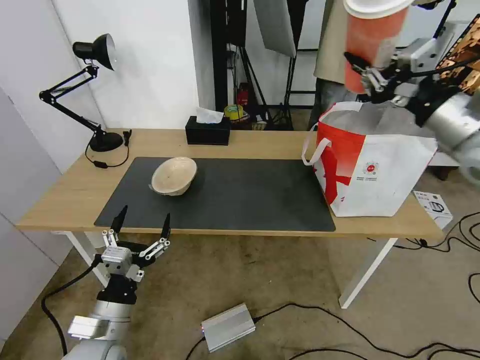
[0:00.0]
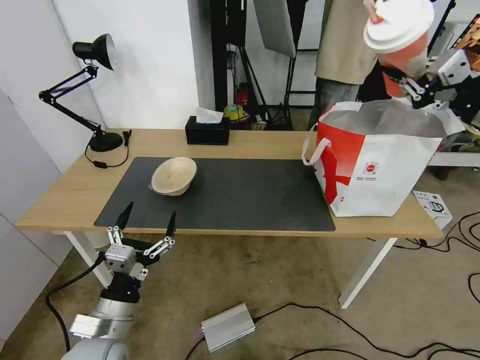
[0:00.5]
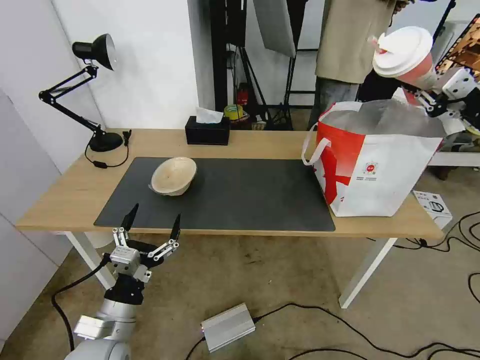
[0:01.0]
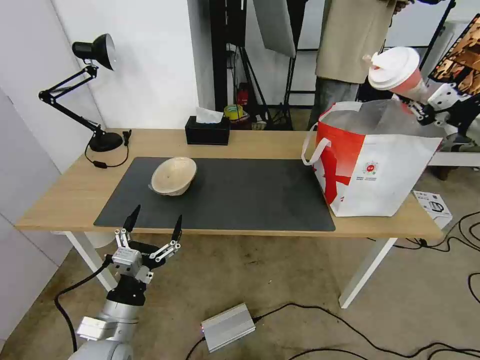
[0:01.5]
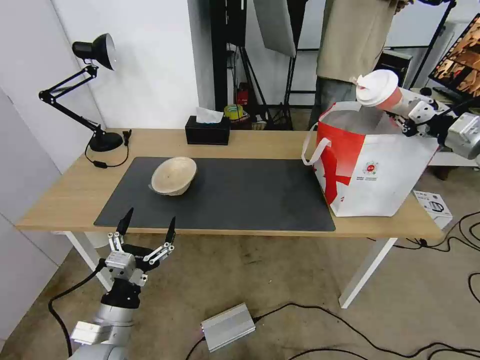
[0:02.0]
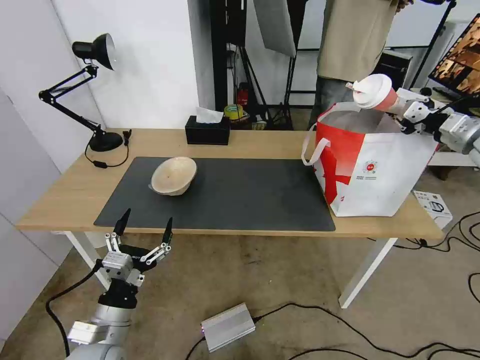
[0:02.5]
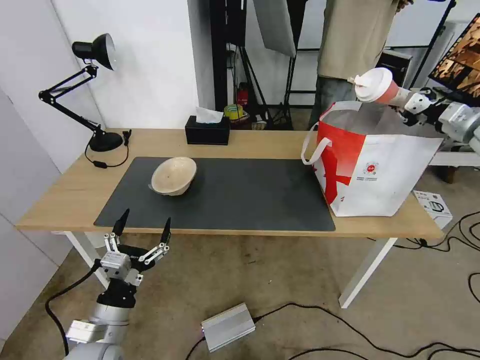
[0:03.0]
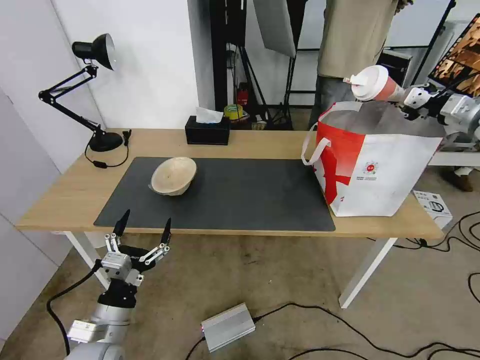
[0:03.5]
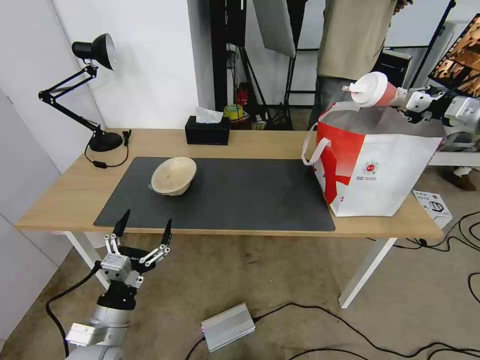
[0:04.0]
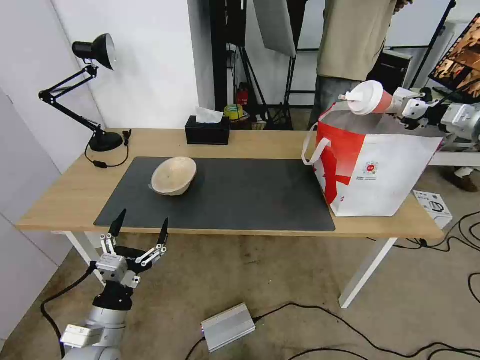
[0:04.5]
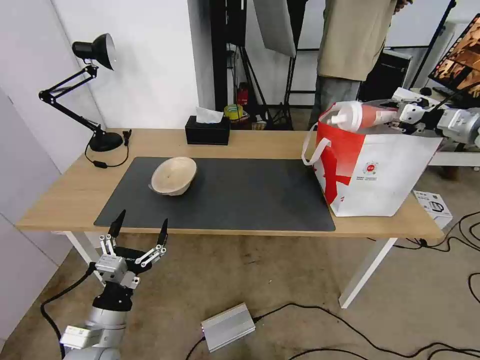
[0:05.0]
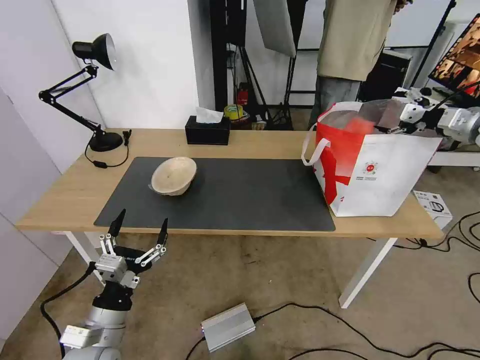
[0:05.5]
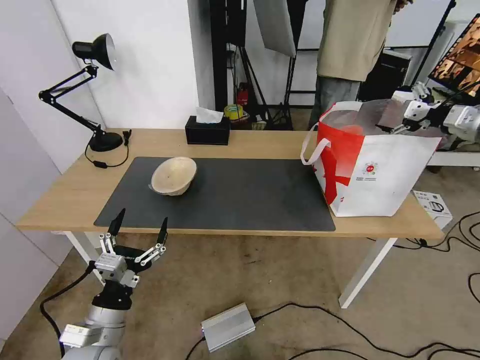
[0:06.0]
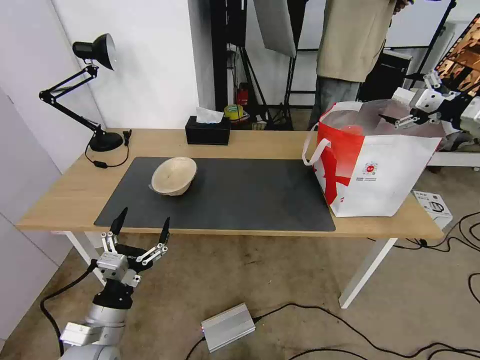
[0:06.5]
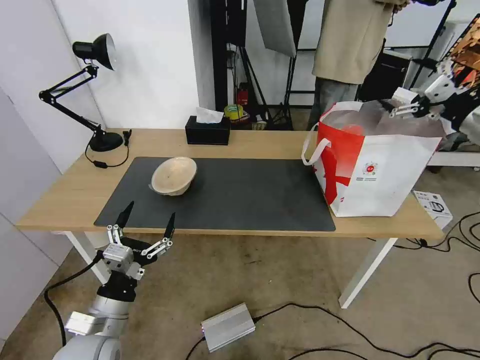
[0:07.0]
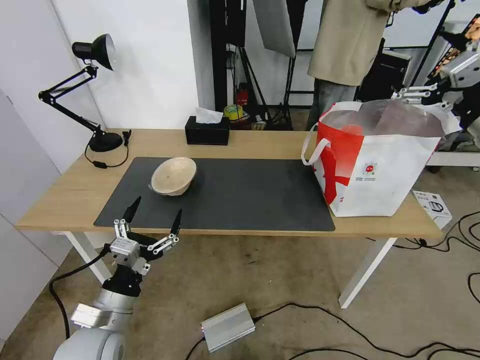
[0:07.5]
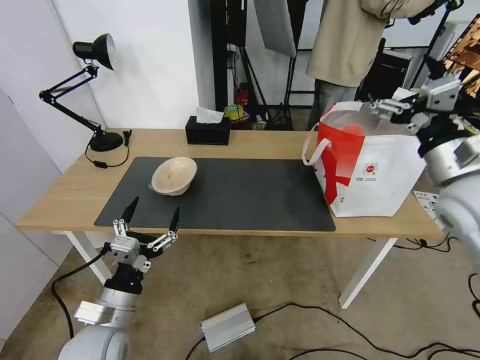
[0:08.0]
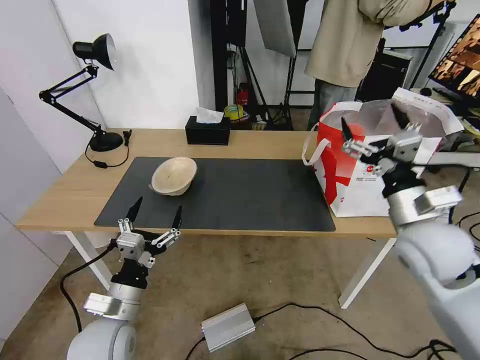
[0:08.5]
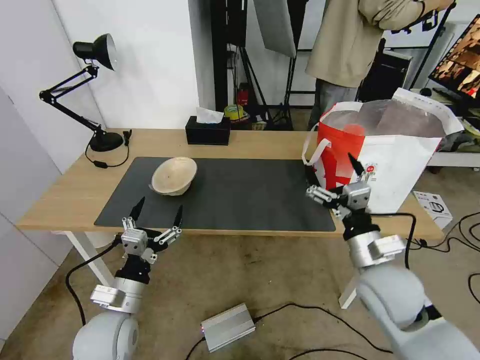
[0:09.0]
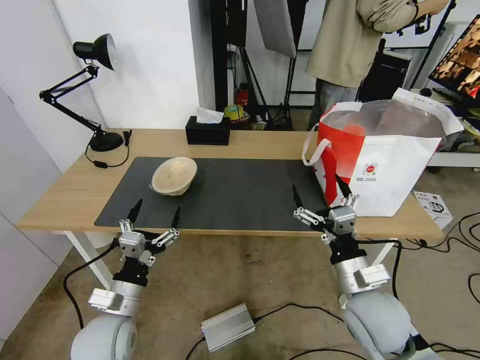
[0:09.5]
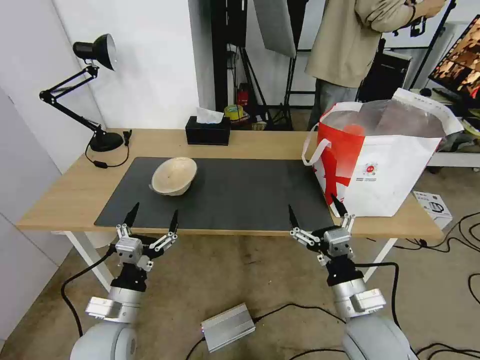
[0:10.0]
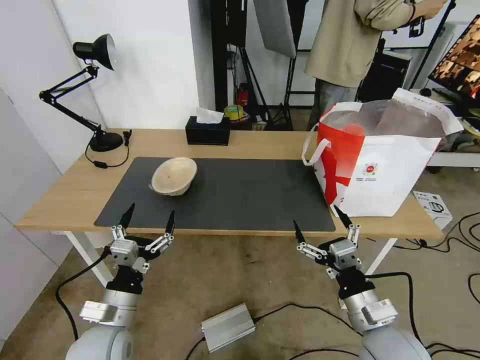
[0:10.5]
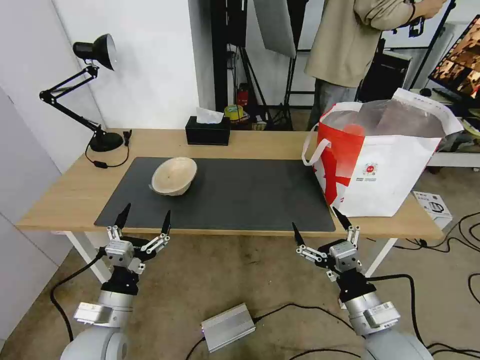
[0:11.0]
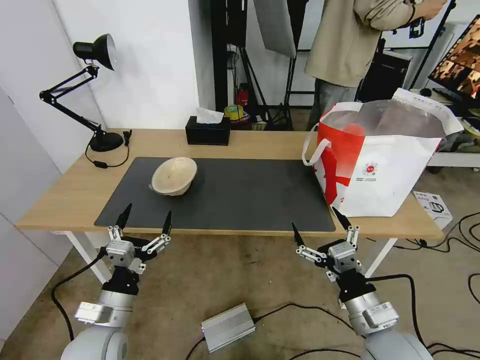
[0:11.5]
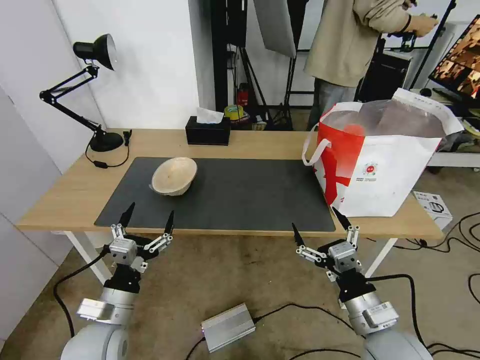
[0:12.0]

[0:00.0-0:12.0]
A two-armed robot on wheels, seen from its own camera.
Task of the whole recording: Pick up the trash from the table and place it into the takeout bag.
0.0 to 2.0 s: The right gripper shifts some 20 cm to the right, forward and downward.
2.0 to 4.0 s: The right gripper shifts by approximately 5 cm.
4.0 to 6.0 s: The right gripper opens its fingers.
6.0 to 8.0 s: The right gripper goes roughly 25 cm to the left and backward.
8.0 to 10.0 s: The right gripper moves downward, backward and to the left, some 30 cm.
10.0 to 12.0 s: The grippers move only a little.

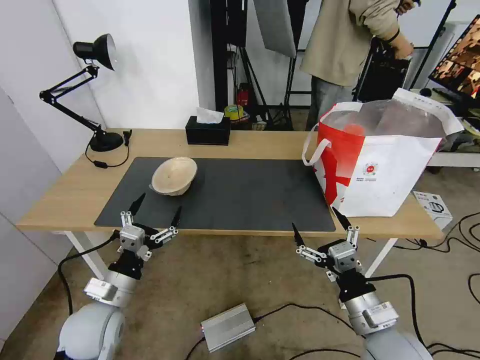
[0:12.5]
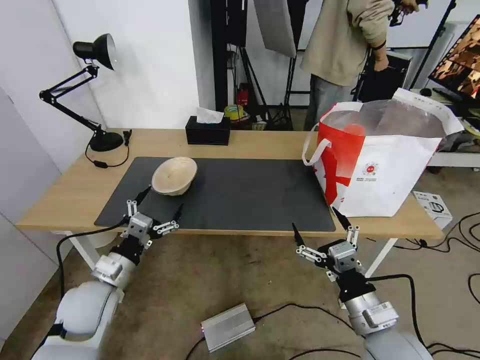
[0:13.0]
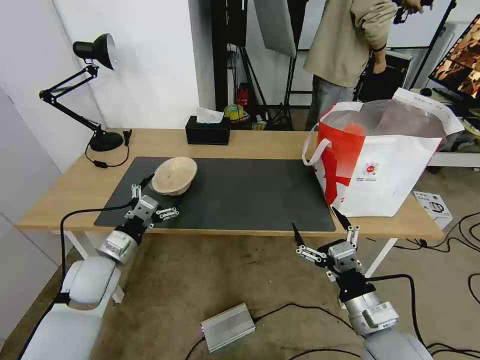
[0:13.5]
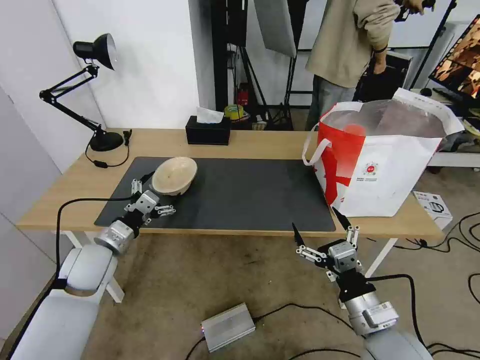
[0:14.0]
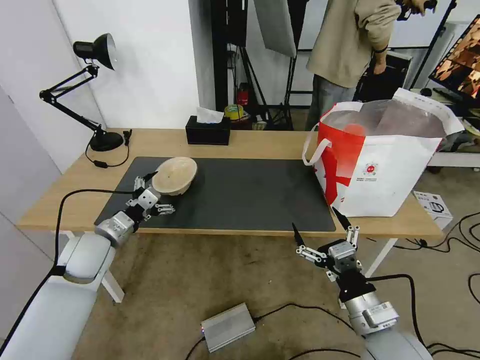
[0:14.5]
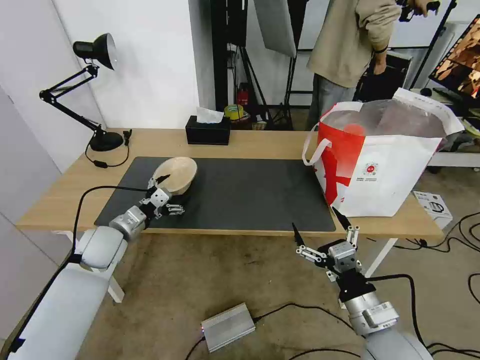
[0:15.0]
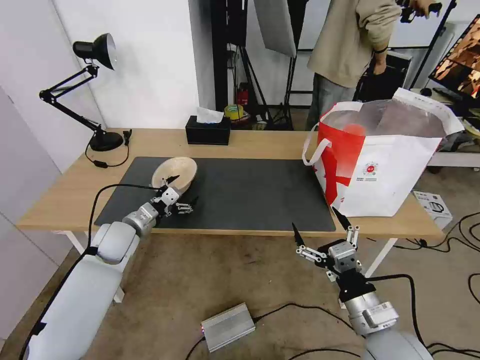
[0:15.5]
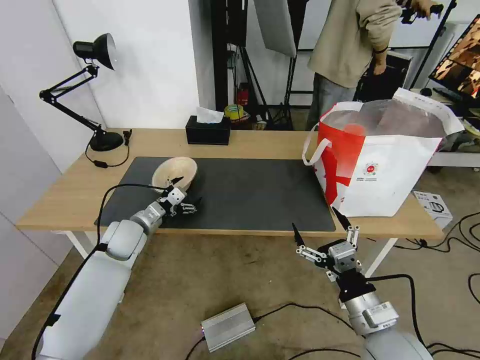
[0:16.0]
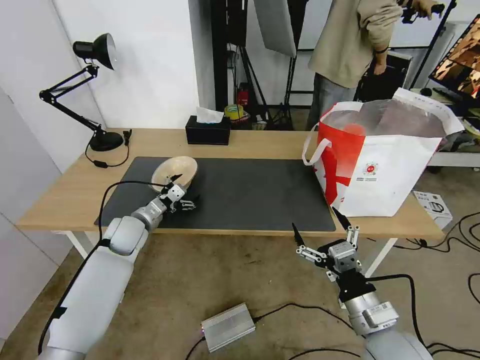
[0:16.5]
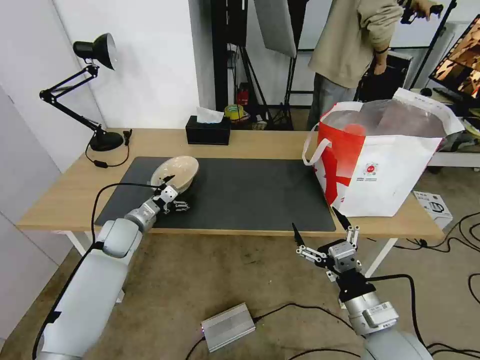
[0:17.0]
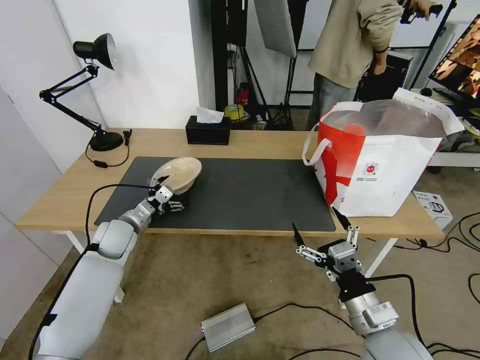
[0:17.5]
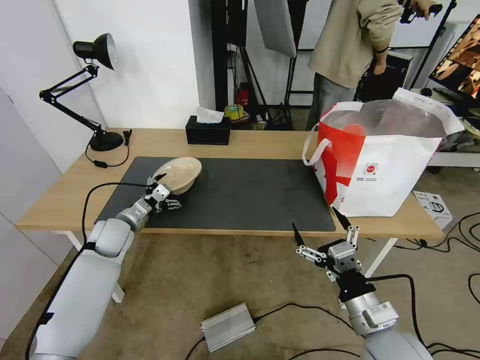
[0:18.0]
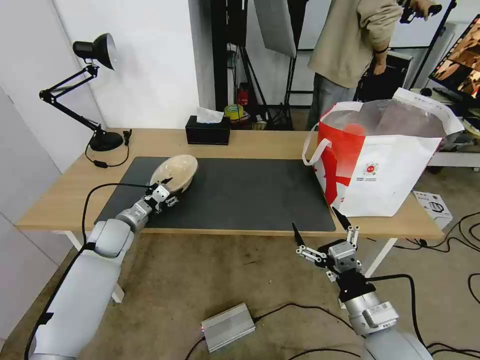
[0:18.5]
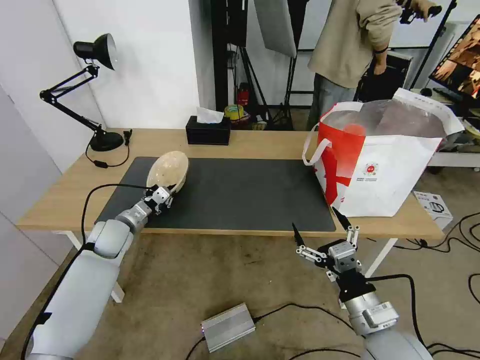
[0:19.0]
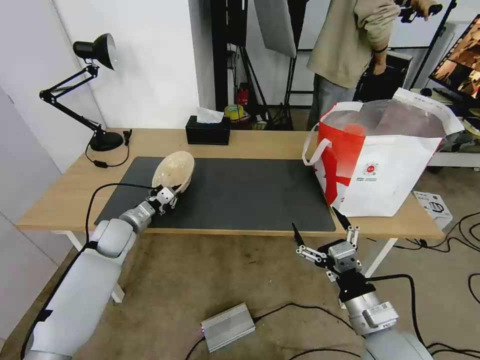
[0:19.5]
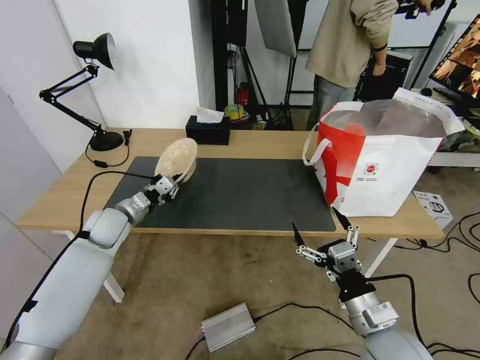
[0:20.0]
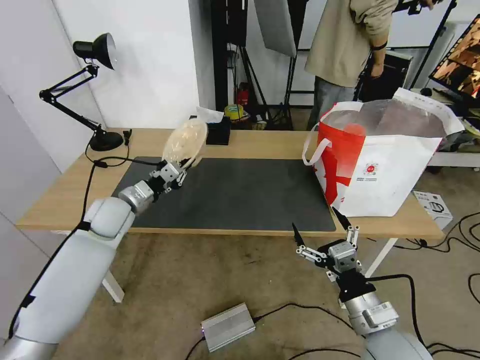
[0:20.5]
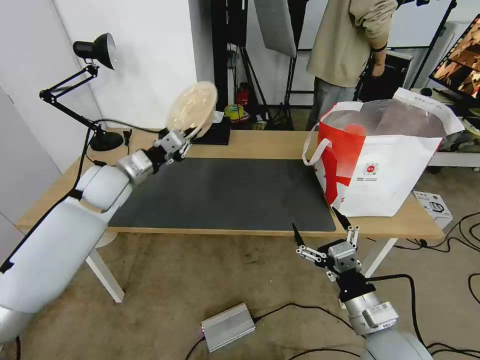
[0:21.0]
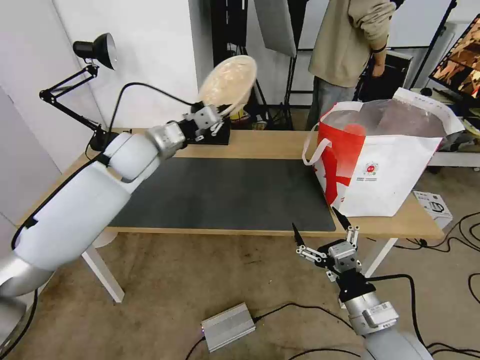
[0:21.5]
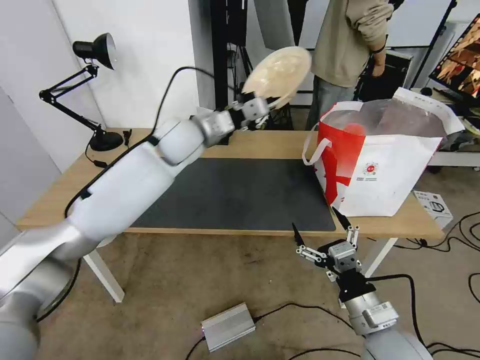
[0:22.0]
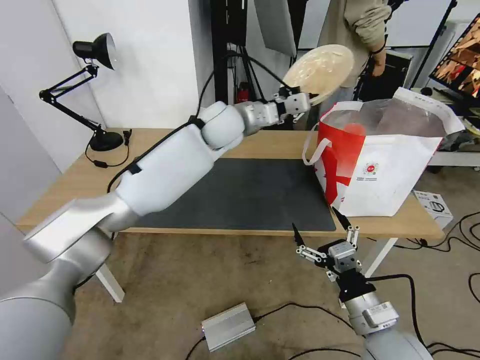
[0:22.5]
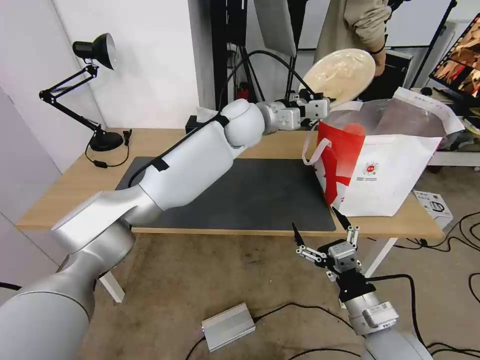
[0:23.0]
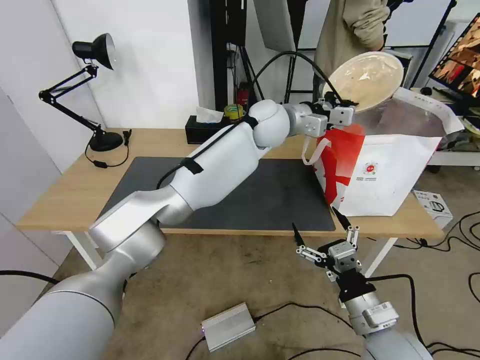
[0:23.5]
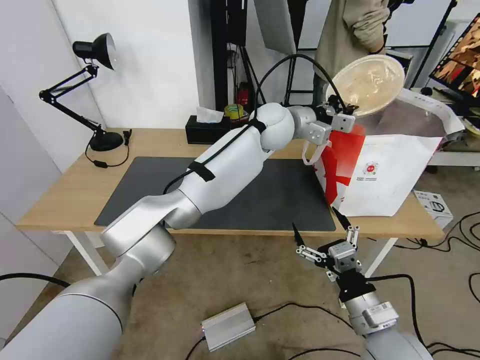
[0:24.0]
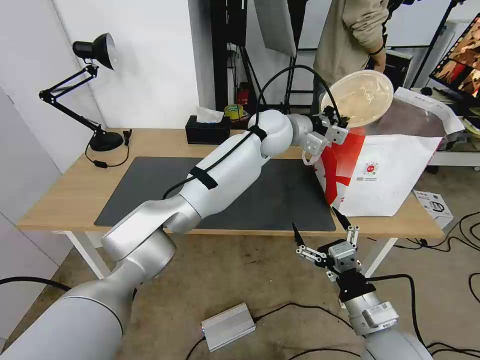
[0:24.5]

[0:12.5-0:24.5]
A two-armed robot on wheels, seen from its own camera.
Task of the whole recording: Pick up the trash from the table and place it into the takeout bag.
12.5 to 14.5 s: The left gripper heads forward and to the left, covering about 15 cm.
14.5 to 16.5 s: The left gripper moves forward, about 10 cm.
16.5 to 18.5 s: The left gripper closes.
18.5 to 20.5 s: The left gripper is displaced upward by some 10 cm, and closes its fingers.
20.5 to 22.5 s: The left gripper goes about 35 cm to the right, upward and forward.
22.5 to 24.5 s: The left gripper goes about 10 cm to the right.

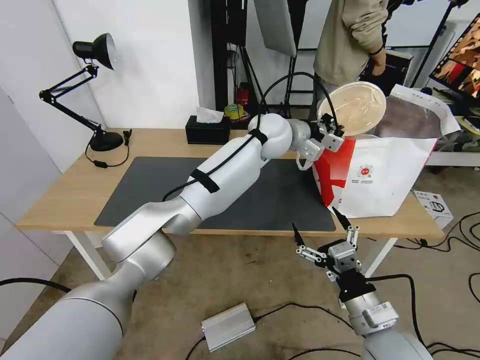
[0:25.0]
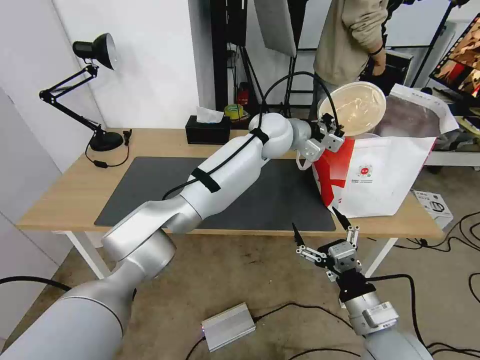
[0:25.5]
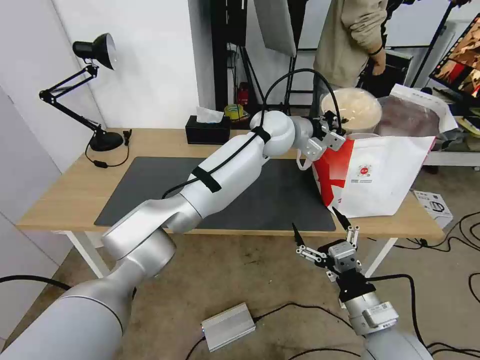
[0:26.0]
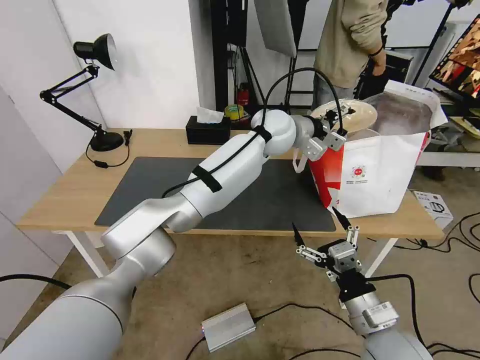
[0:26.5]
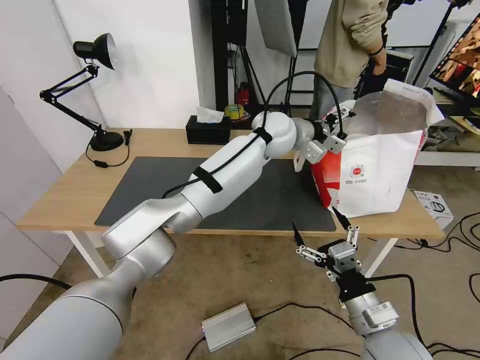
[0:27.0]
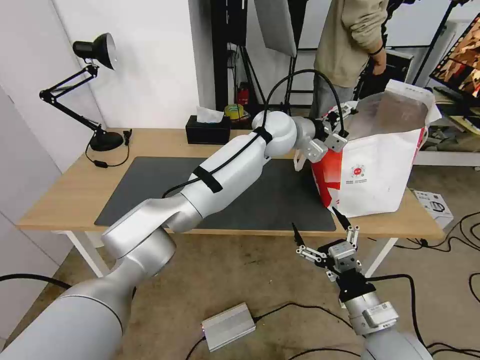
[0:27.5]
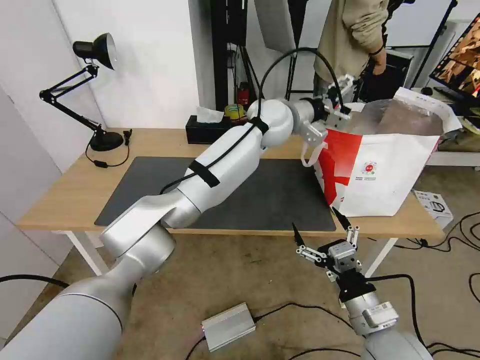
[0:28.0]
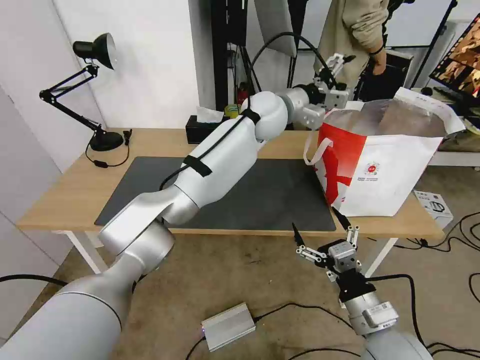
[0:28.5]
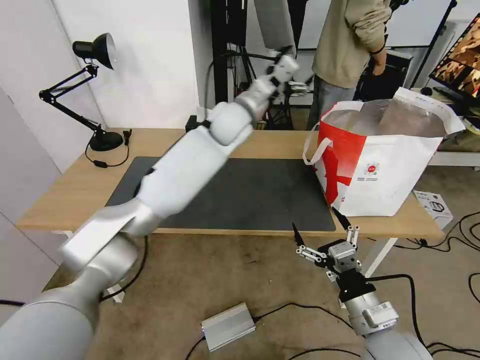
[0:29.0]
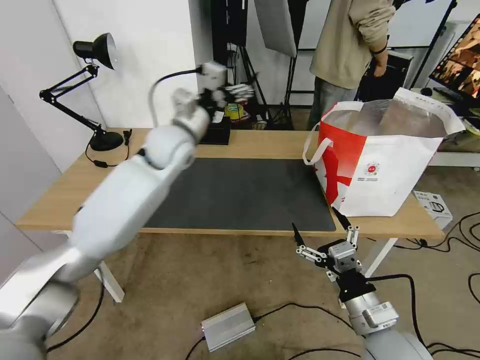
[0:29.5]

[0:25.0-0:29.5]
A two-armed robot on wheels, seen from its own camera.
Task of the whole recording: Pick up the trash from the table and place it into the takeout bag.
25.0 to 27.0 s: The left gripper opens up.
27.0 to 29.5 s: The left gripper heads to the left, covering about 25 cm.
